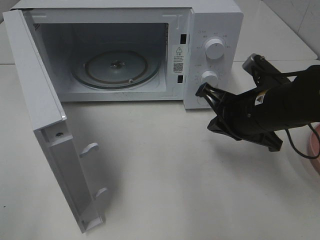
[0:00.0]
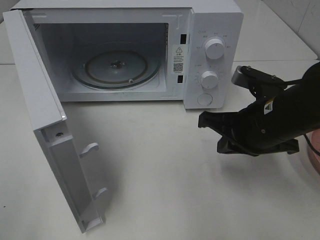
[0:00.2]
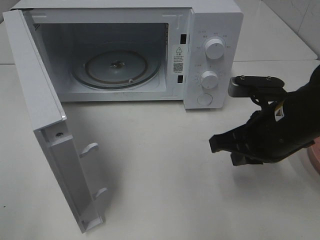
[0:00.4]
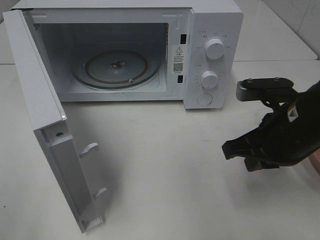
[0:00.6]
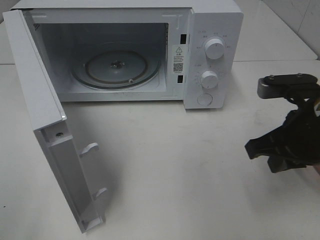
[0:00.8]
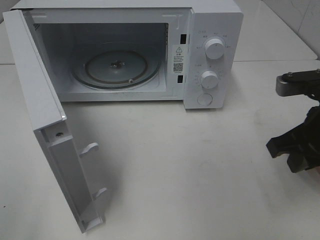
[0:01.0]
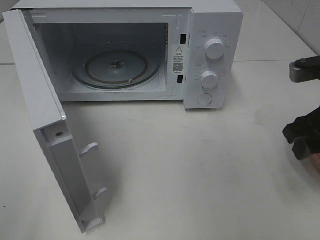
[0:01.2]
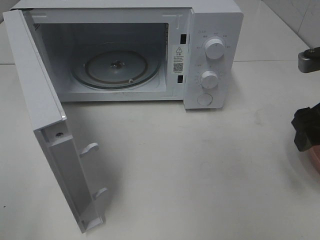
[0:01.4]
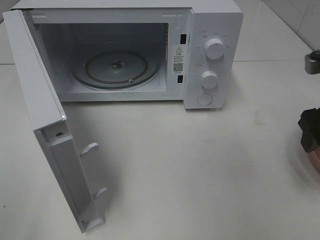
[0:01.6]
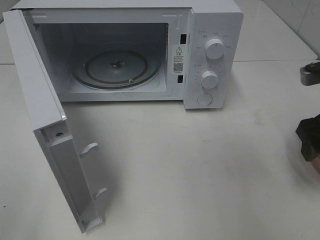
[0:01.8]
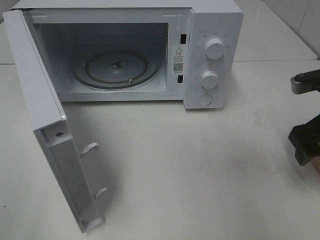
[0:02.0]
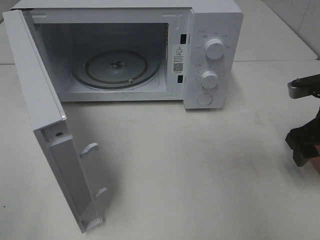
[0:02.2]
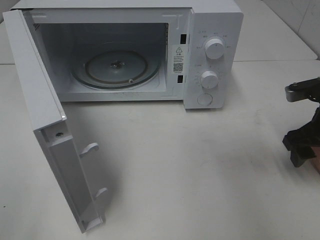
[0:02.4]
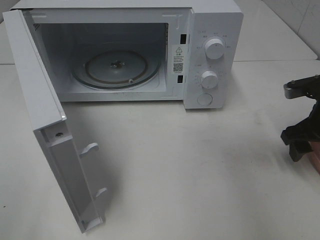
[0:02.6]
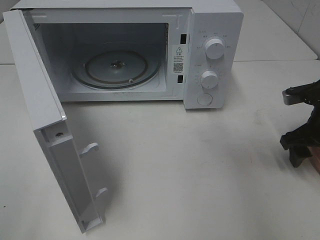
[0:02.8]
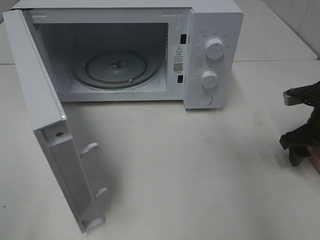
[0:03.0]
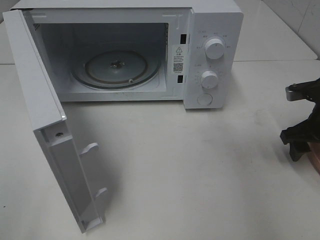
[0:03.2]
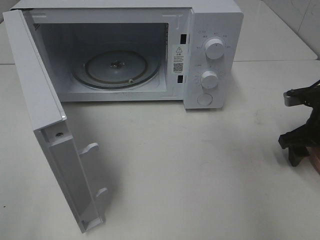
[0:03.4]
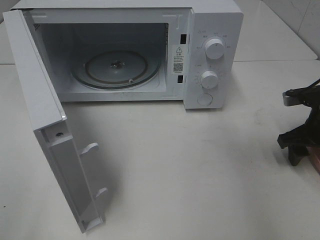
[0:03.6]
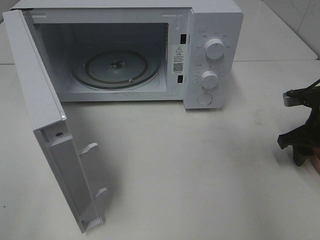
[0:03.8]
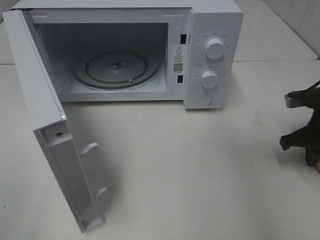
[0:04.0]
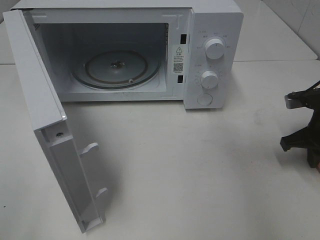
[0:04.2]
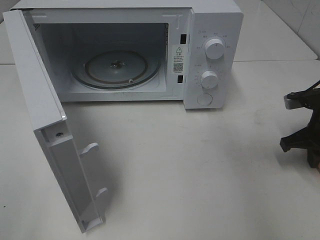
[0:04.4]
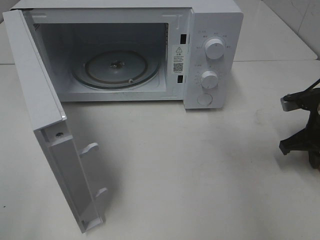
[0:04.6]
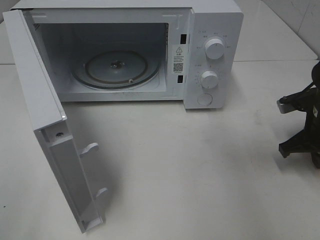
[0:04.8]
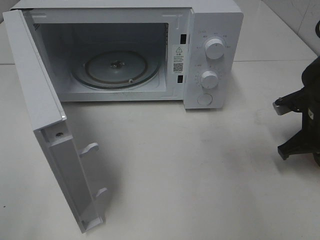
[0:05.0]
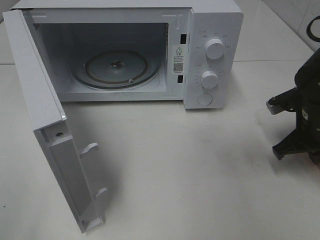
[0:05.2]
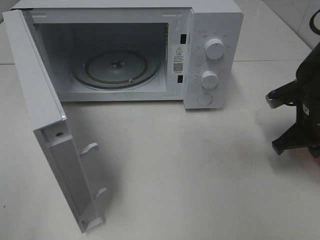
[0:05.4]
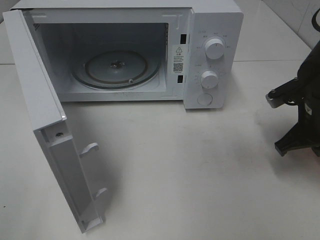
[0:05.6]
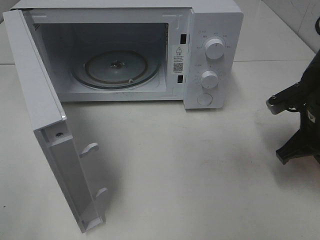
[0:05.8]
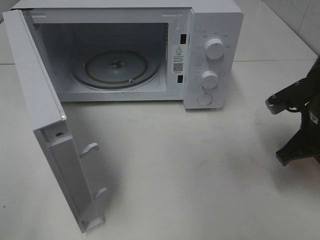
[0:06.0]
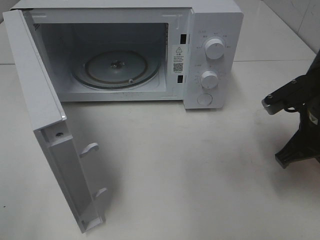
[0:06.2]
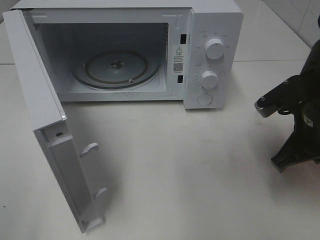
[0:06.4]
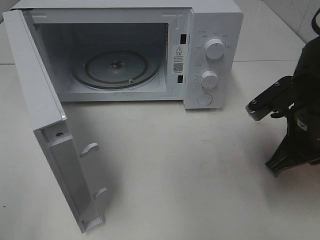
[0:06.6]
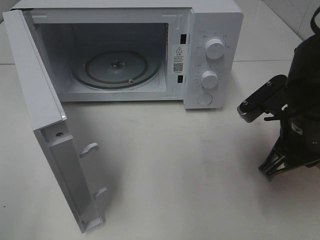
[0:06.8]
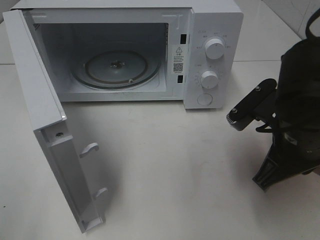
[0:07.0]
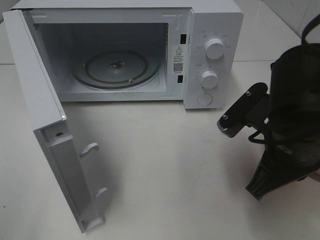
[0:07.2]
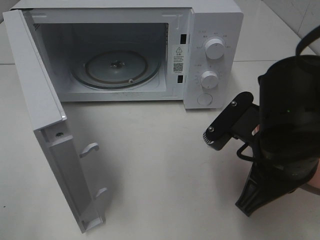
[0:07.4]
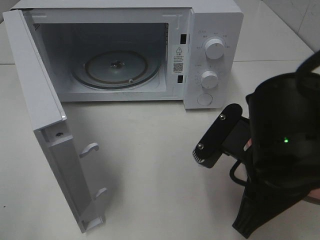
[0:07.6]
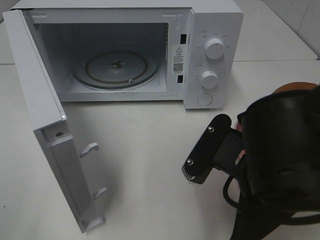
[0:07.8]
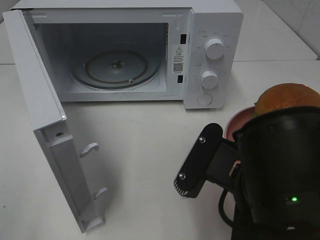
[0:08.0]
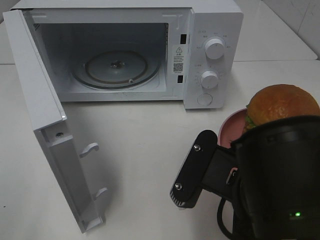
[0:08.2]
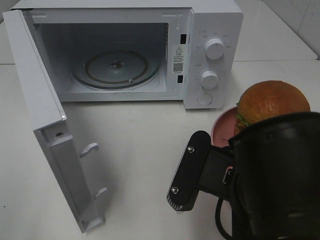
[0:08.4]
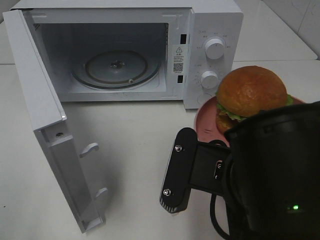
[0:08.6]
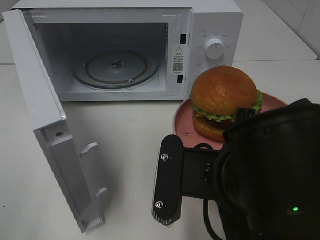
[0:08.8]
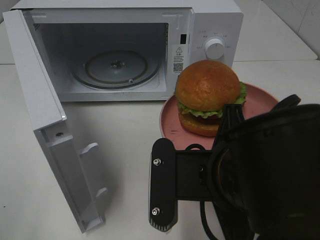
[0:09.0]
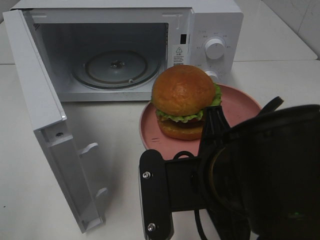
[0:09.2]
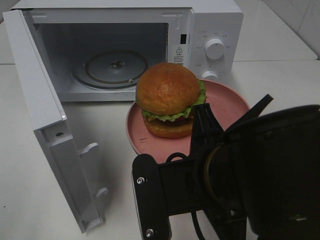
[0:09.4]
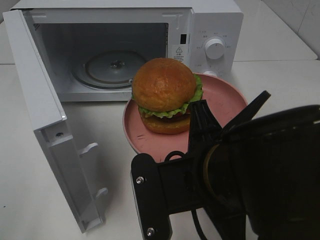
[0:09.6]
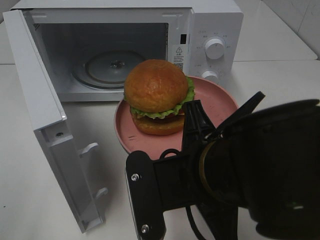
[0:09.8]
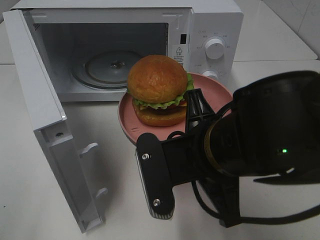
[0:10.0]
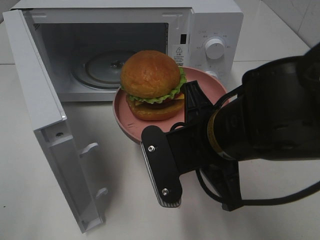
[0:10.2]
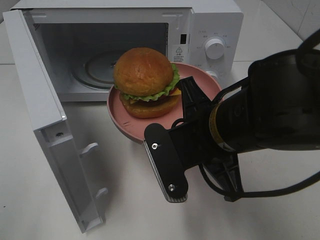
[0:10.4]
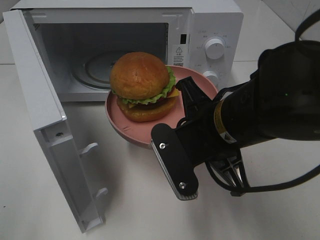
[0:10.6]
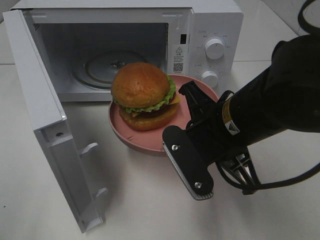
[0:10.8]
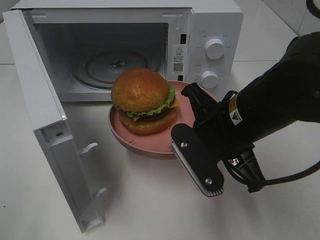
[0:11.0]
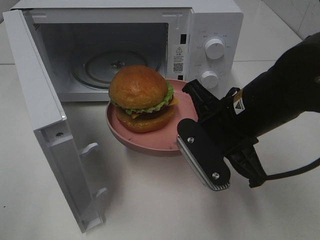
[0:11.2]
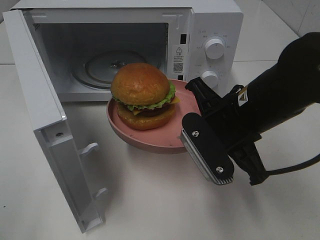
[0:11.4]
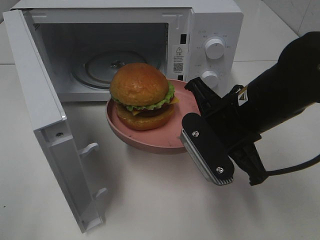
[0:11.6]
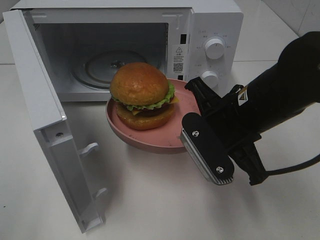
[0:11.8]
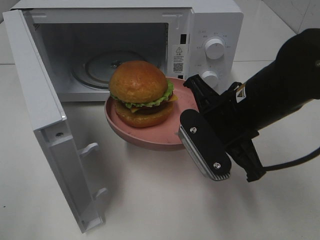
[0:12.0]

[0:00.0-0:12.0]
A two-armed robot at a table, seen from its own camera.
Task of the whole recording: Heat the burger.
Step, 0:00.0 to 0:05.0: Right hand: grab the plate with the hamburger.
0:00.0 to 0:01.6: The right gripper is displaced to the right and upward by some 15 cm, and opens up.
0:01.6 to 0:03.0: The right gripper shifts some 10 cm downward and forward.
0:03.0 to 0:04.4: The right gripper closes up.
0:04.4 to 0:06.0: The right gripper moves to the left, approximately 5 cm.
0:06.0 to 0:07.6: The right gripper shifts about 15 cm to the left and backward.
0:07.6 to 0:09.0: The right gripper changes place by approximately 5 cm.
0:09.0 to 0:10.4: The right gripper shifts roughly 5 cm forward.
0:10.4 to 0:12.0: The right gripper shifts by approximately 5 cm.

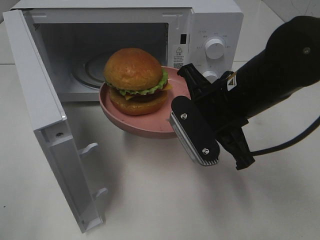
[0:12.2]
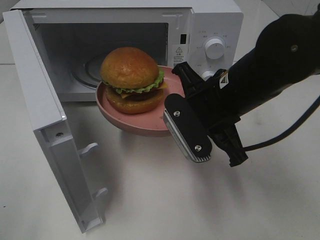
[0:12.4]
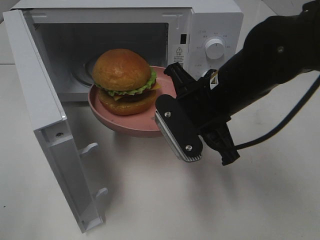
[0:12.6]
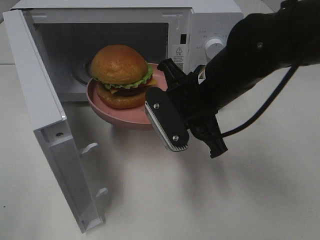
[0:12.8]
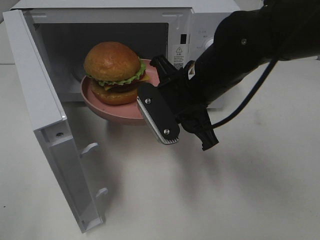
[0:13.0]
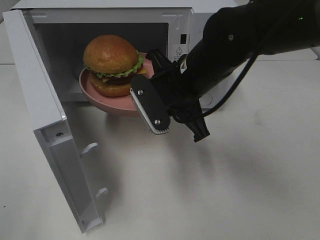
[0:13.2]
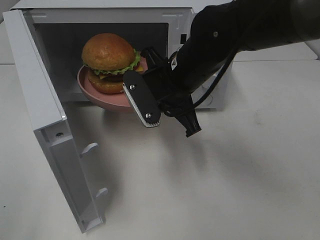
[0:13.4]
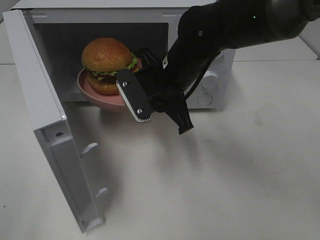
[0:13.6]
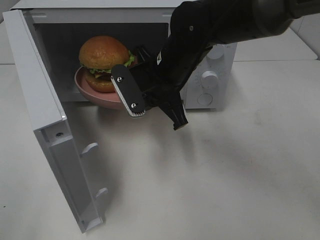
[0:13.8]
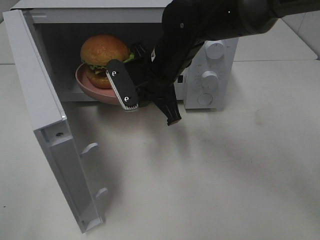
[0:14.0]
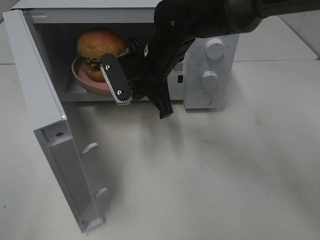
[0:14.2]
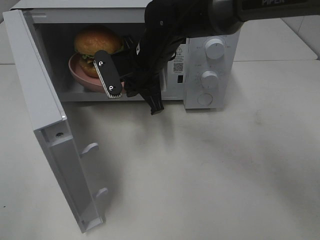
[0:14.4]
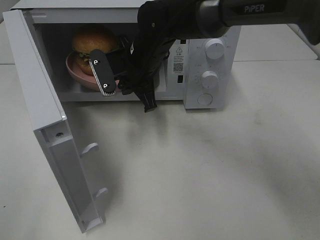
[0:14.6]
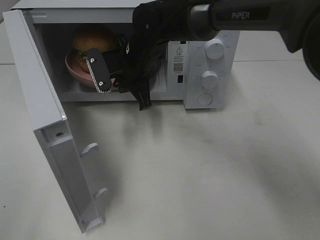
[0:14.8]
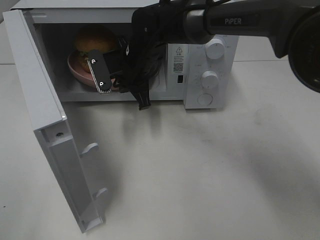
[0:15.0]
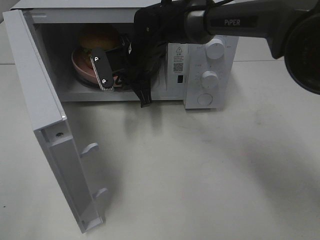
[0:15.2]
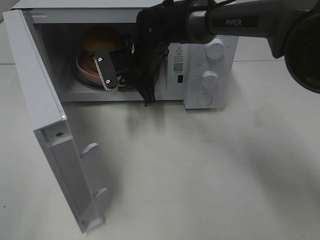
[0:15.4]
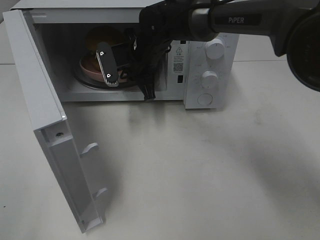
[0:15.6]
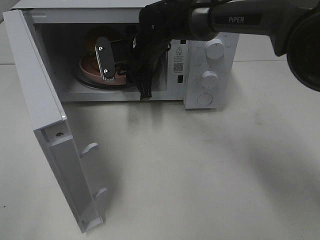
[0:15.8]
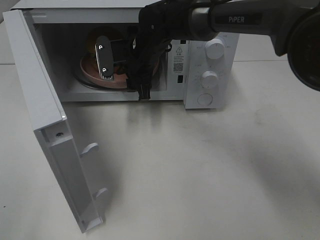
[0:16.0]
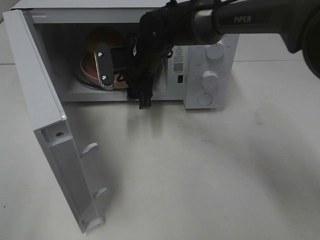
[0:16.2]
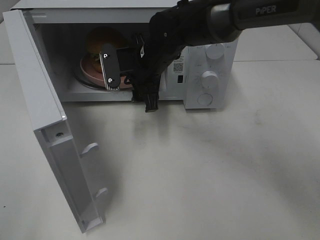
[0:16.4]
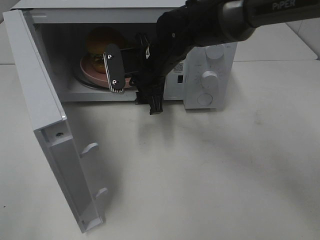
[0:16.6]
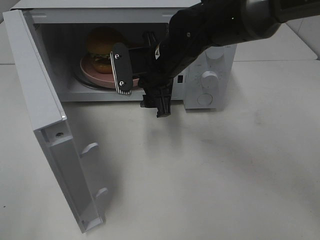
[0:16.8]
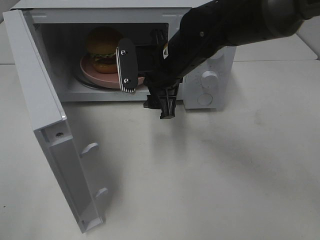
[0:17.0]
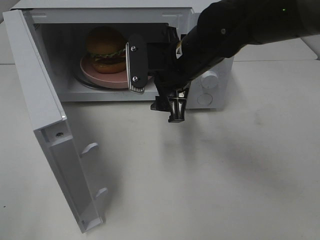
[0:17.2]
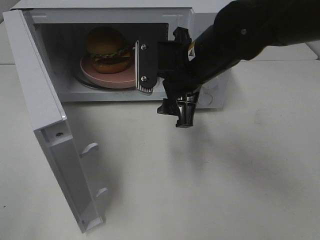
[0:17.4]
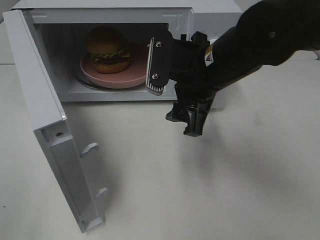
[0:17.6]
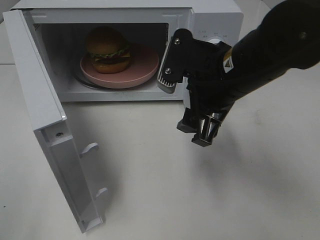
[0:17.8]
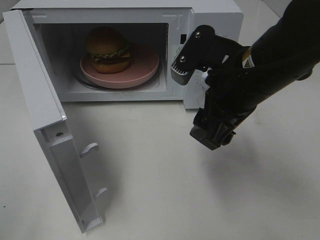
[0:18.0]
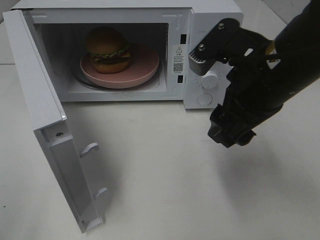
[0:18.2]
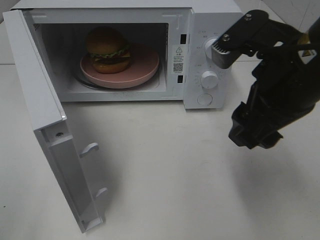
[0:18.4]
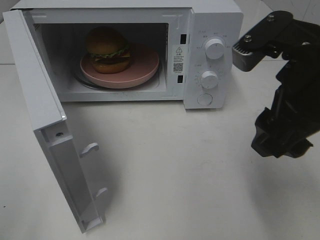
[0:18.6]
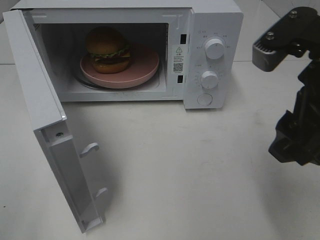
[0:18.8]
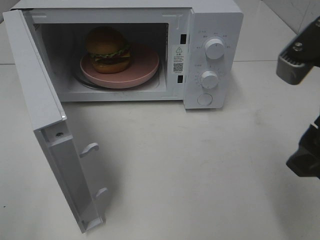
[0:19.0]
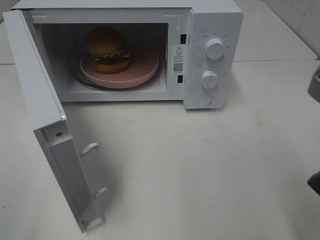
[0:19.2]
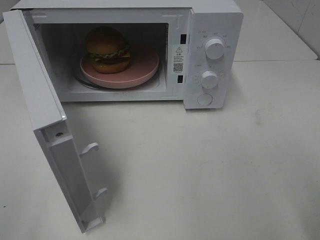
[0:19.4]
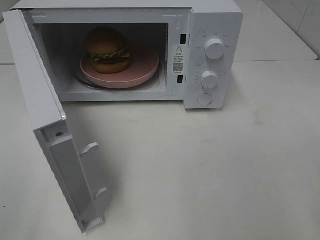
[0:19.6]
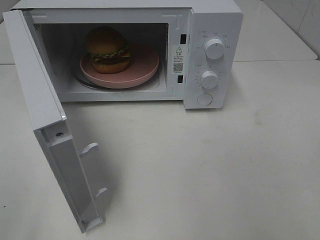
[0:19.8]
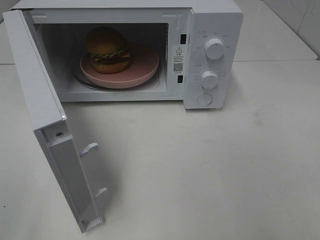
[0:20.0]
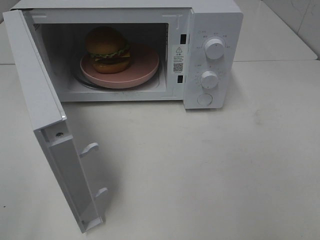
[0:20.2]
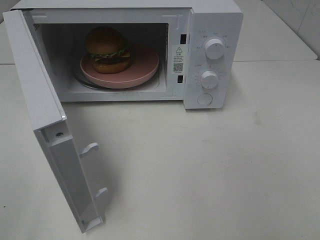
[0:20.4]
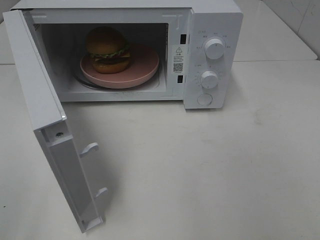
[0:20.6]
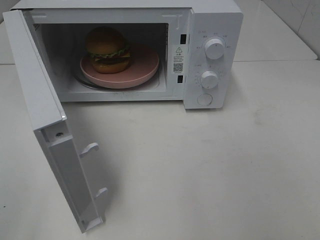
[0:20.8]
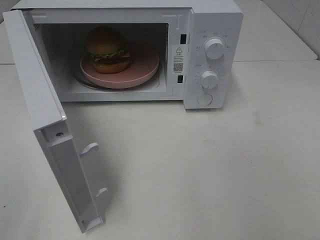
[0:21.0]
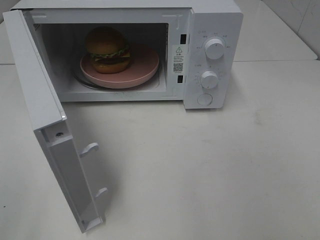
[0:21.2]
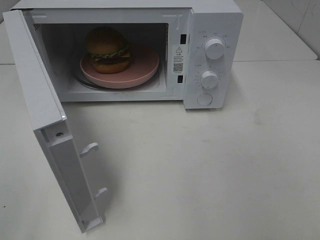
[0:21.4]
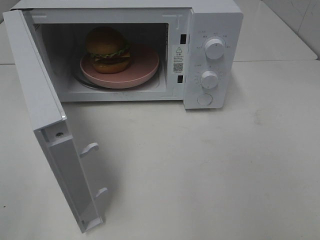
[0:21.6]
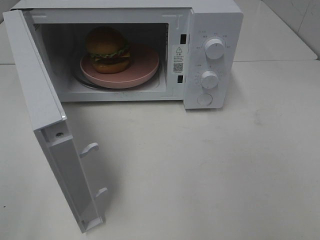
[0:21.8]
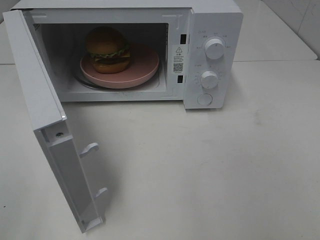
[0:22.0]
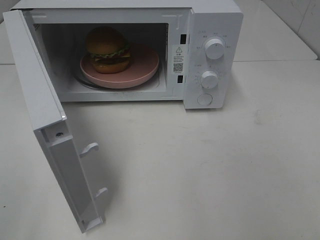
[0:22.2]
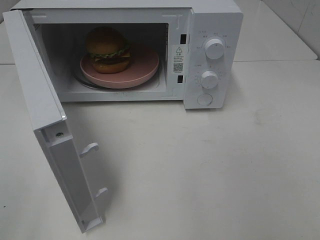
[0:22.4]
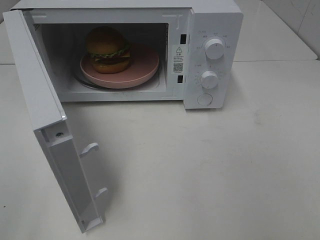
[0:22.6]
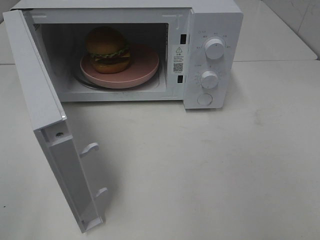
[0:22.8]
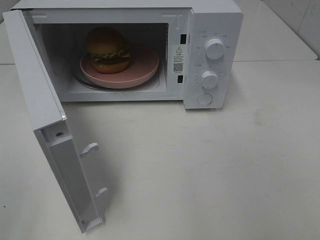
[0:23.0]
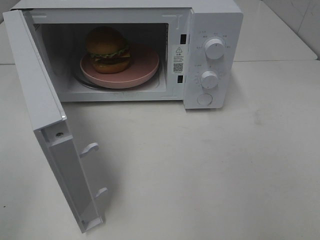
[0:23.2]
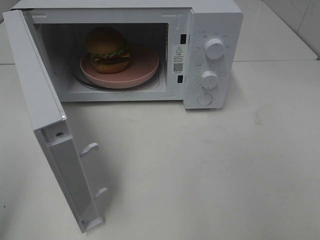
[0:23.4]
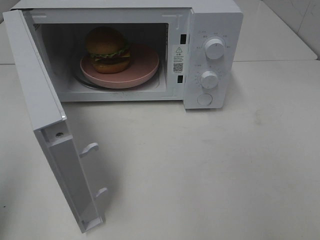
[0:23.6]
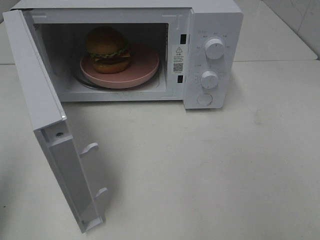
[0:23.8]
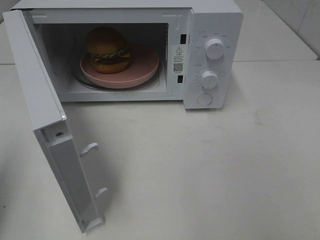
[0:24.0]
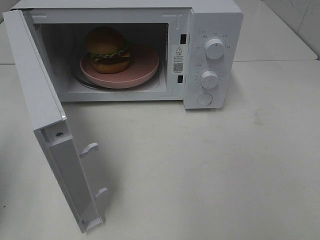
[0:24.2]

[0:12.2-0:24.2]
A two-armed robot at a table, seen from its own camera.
Task of the whole recording: Heat the burger.
Step, 0:12.2 to 0:16.0: Right hand: place the plate in the microwave.
0:12.2 to 0:13.8: The right gripper travels forward and to the left by about 10 cm.
0:13.8 to 0:15.2: The right gripper shifts roughly 10 cm forward.
0:15.2 to 0:16.6: The right gripper shifts by some 5 cm, and opens up.
0:16.6 to 0:18.2: The right gripper travels backward, to the right and upward by approximately 20 cm.
0:18.2 to 0:19.8: The right gripper travels to the right and backward by about 20 cm.
0:21.2 to 0:22.6: Both grippers stay put.
0:22.6 to 0:24.2: The left gripper heads forward, covering some 15 cm, and closes.
